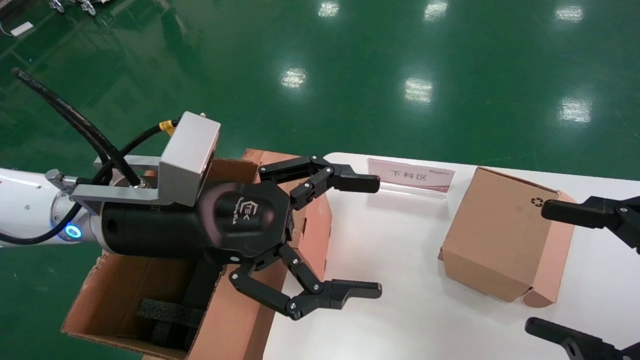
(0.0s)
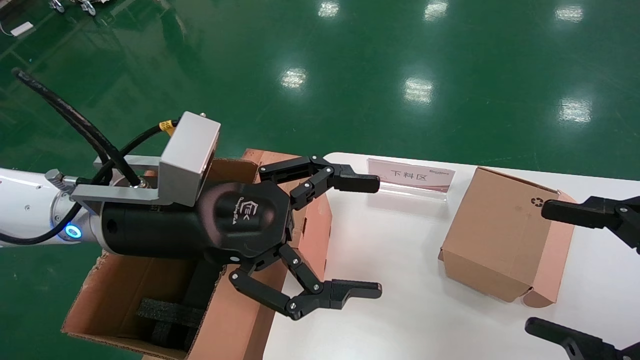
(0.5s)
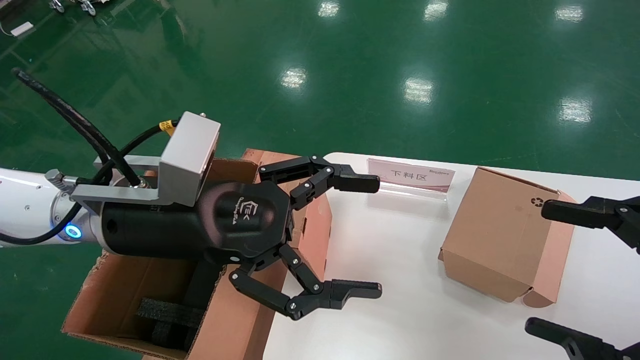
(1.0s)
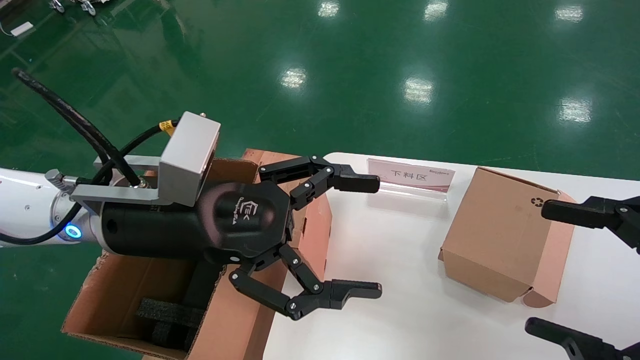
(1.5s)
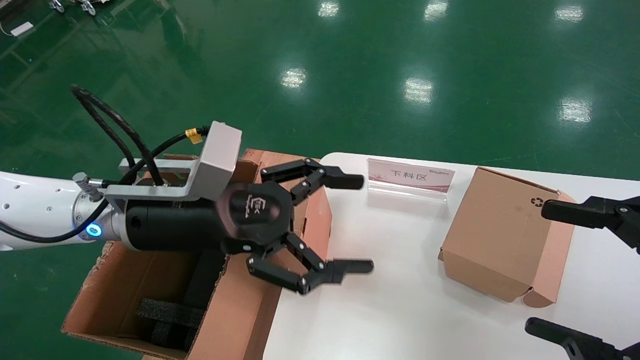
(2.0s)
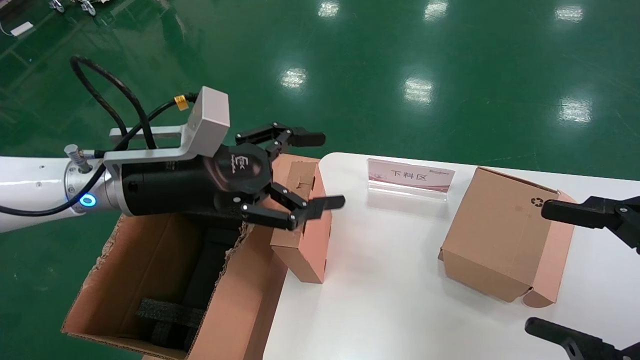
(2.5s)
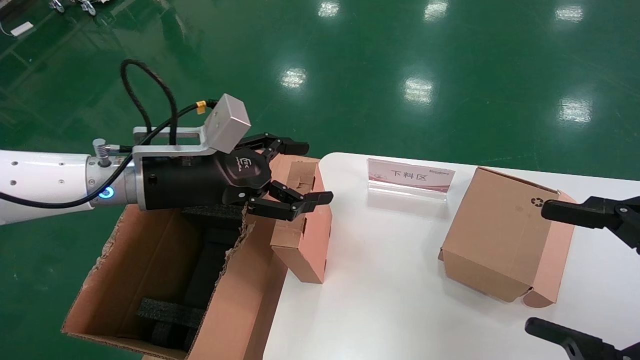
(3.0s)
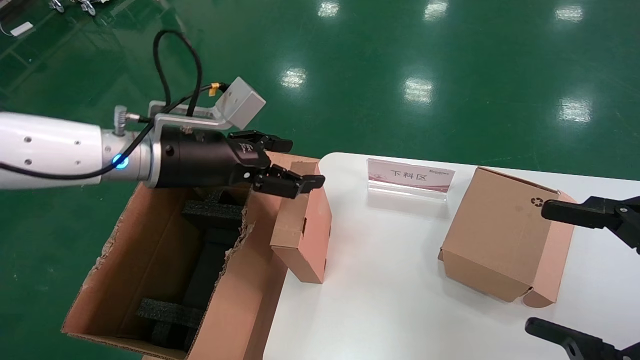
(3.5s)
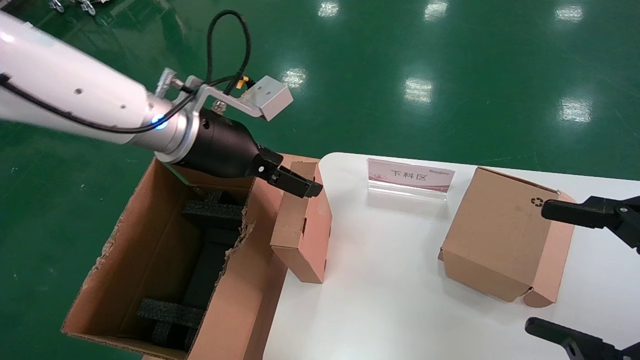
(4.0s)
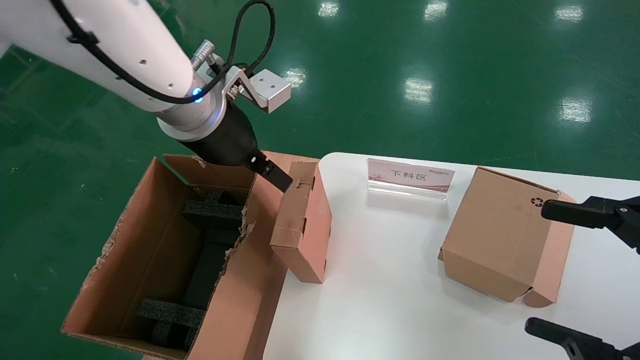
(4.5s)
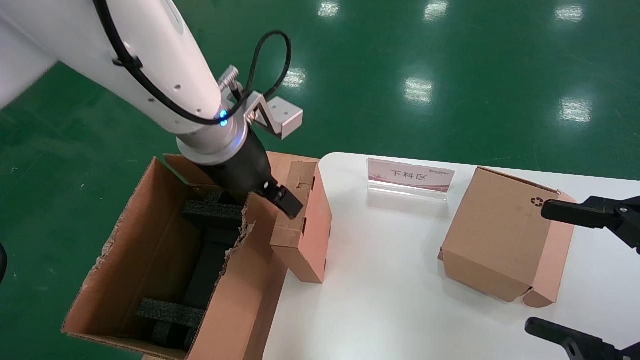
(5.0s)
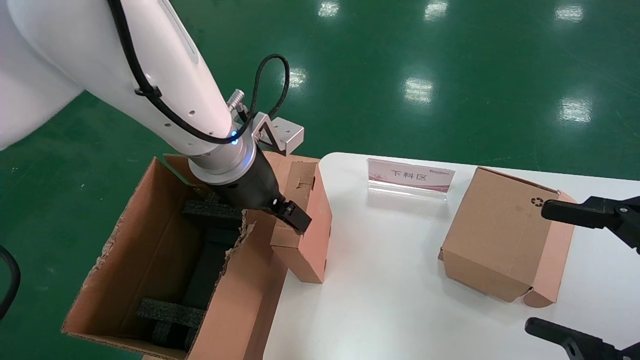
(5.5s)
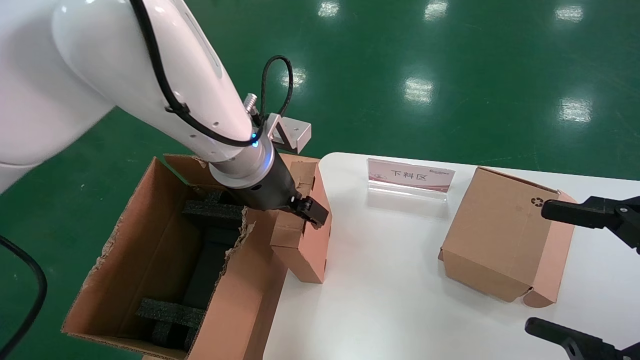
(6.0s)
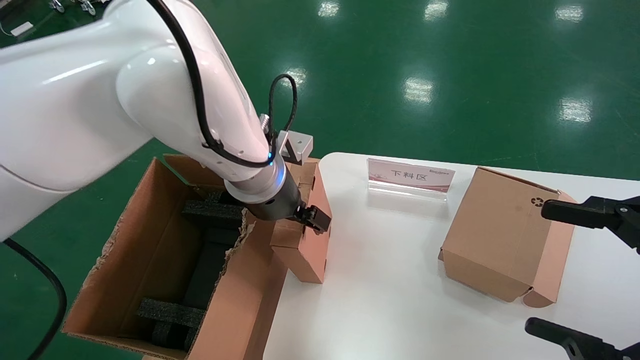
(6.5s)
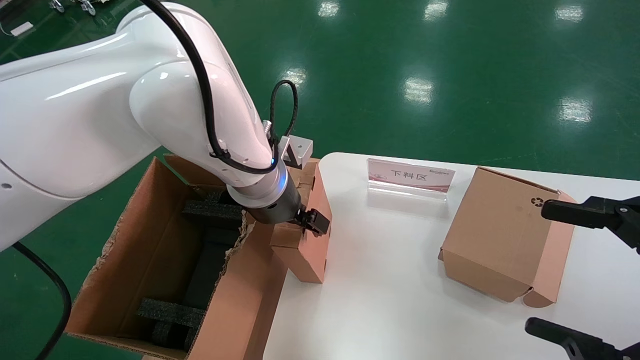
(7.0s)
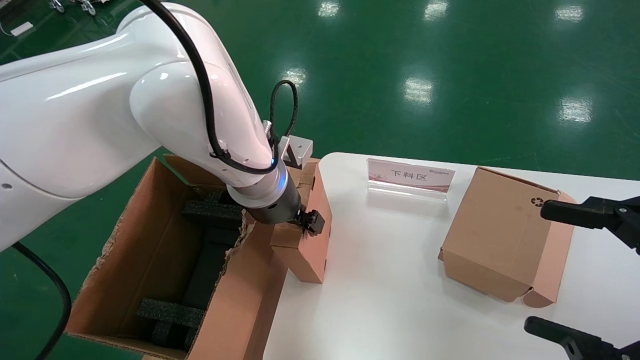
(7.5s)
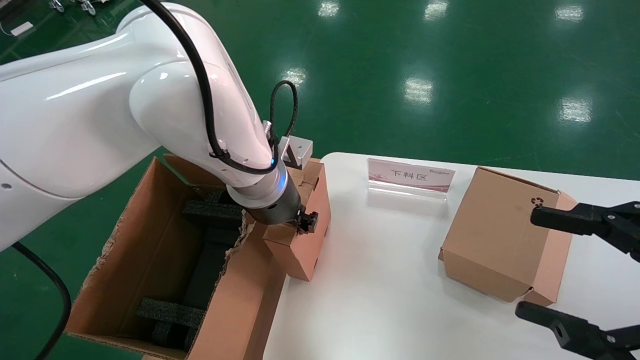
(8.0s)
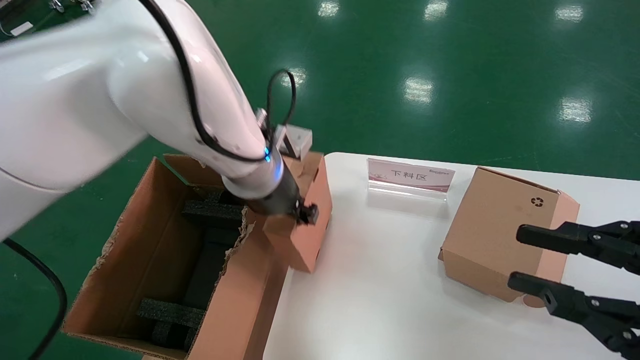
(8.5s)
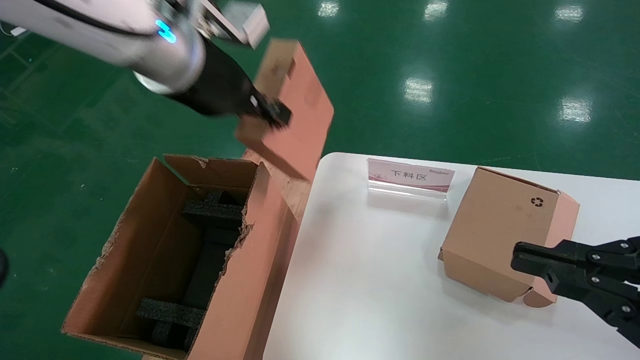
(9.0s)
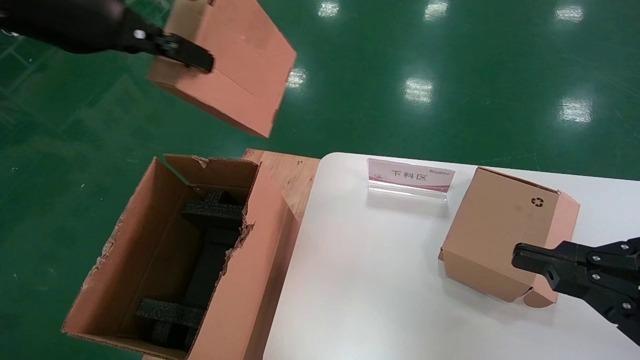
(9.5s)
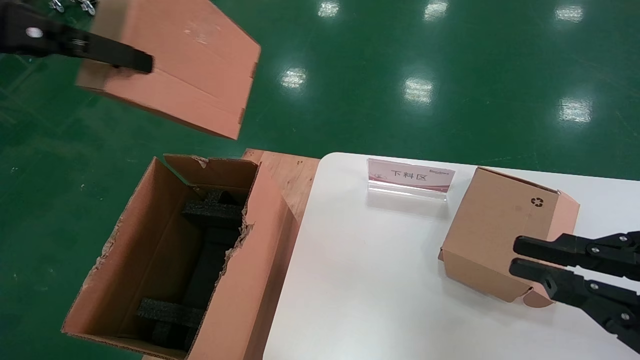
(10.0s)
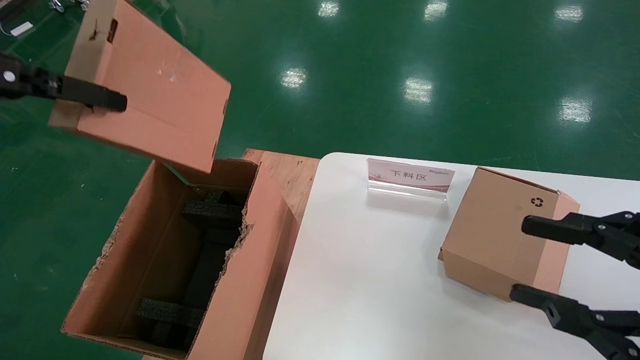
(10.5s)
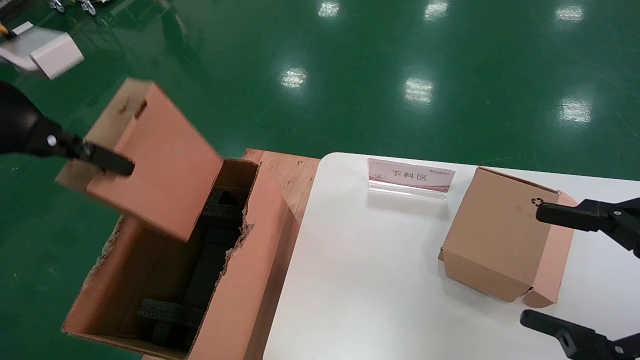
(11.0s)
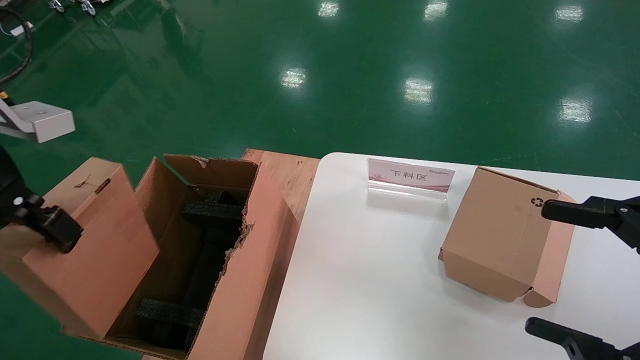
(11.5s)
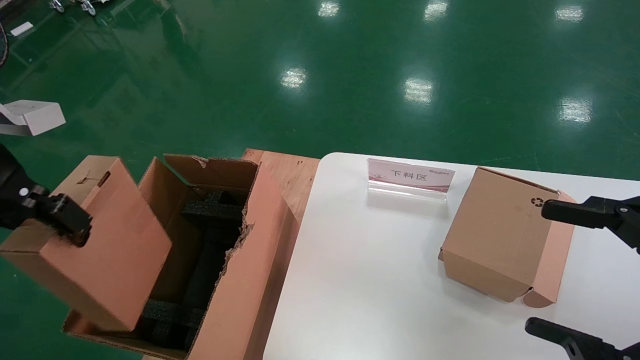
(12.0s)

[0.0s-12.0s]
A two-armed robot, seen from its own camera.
Task of the whole recording: put the box on the table into the big box.
Step, 0.0s to 7.5s: Grasp the paper box.
0.0s to 2.0s: The grippers make only small movements.
2.0s to 4.0s: The left gripper moves upward and forward, about 10 cm.
4.0s to 6.0s: The left gripper is displaced to the right by some 5 cm.
6.0s to 8.0s: The left gripper closes.
8.0s to 10.0s: The left gripper is displaced to the left, upward and backward by about 35 cm. Meanwhile the right gripper closes up.
10.0s to 12.0s: The right gripper opens its fingers, while the left gripper goes approximately 10 cm downward.

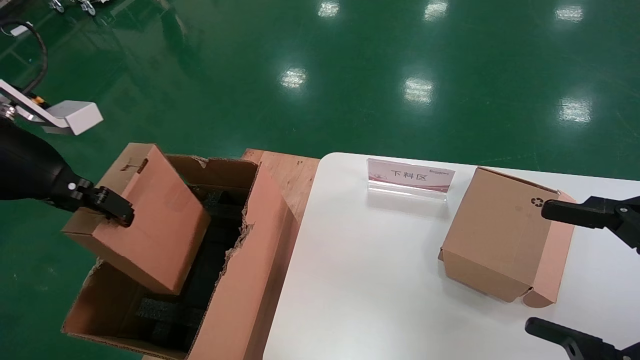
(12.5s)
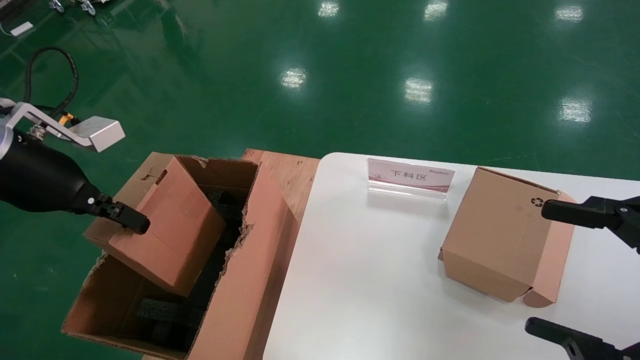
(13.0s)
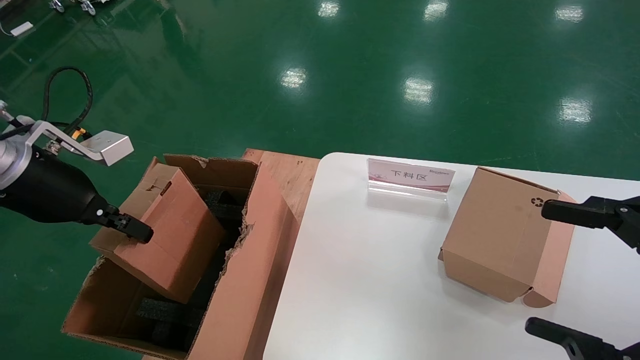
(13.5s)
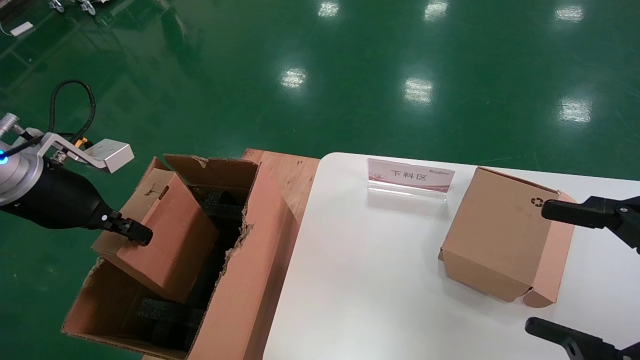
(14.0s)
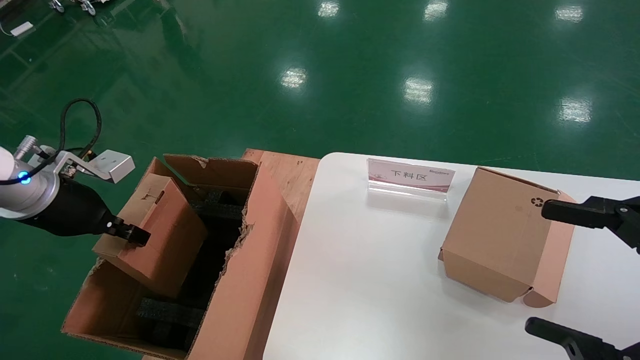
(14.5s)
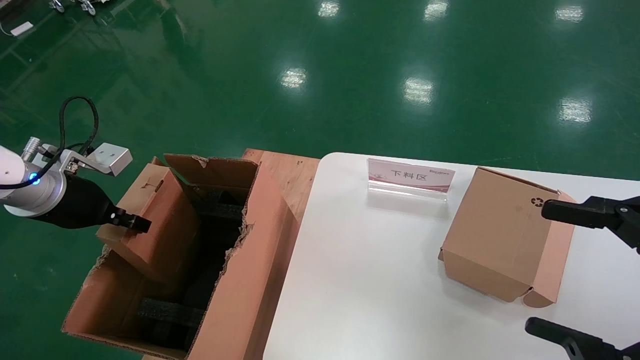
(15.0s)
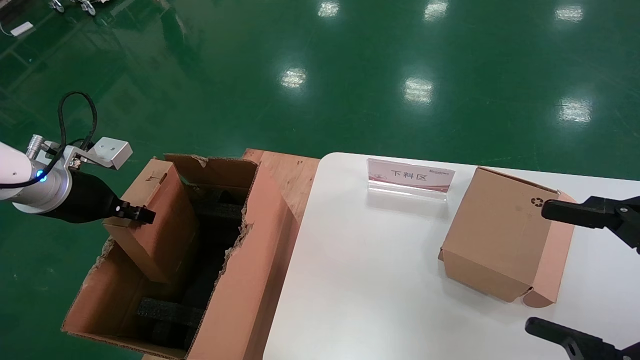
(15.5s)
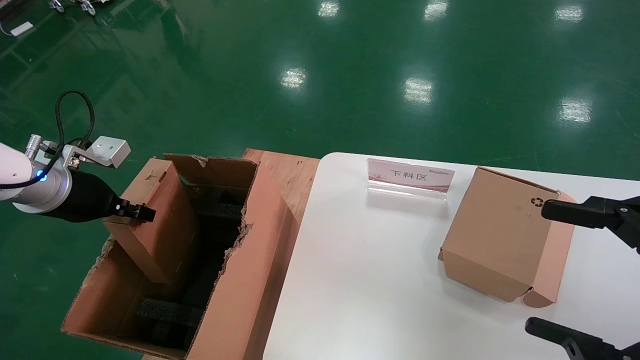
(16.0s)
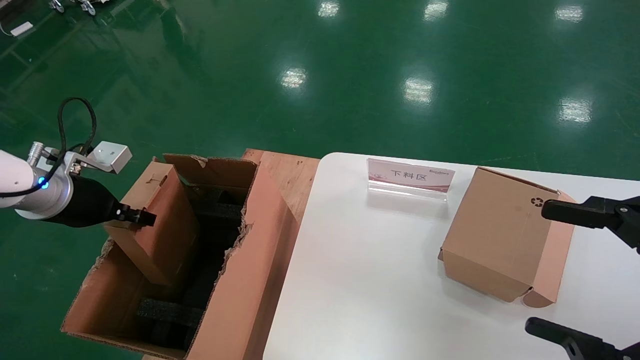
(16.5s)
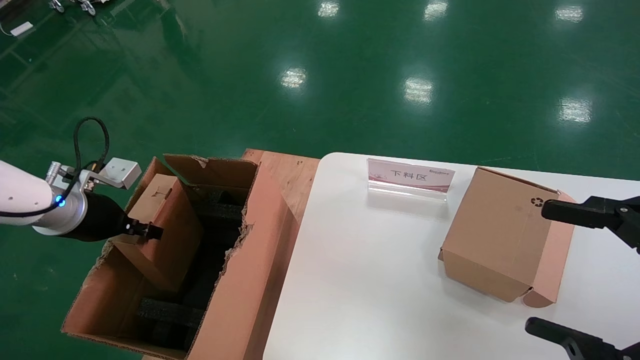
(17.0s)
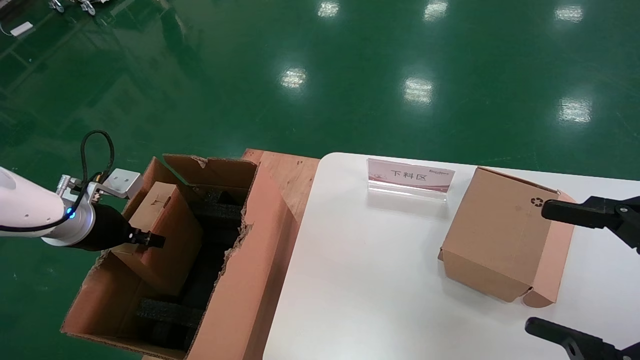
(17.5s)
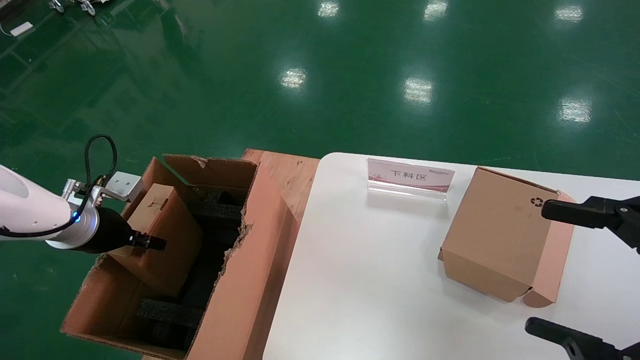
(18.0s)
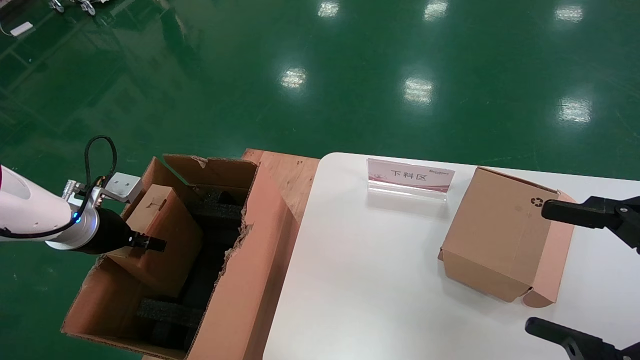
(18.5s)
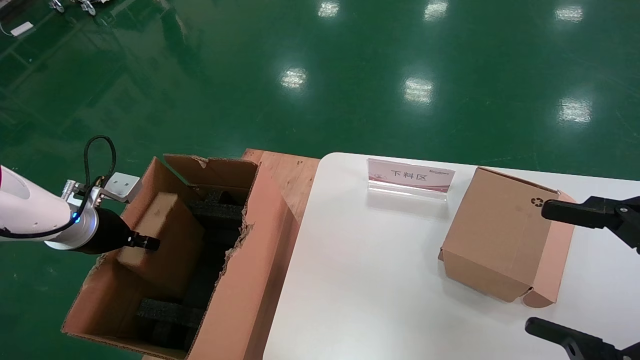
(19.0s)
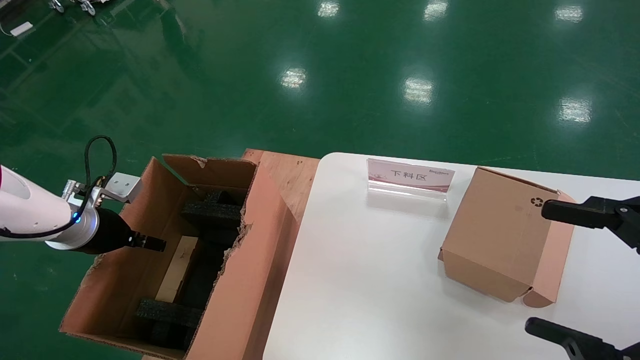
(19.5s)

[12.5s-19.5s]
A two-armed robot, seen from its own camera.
Task of the whole recording: put the box on the table into the big box.
Step, 12.5s to 19.0s: Place the paper box in the another big box.
12.5s to 14.5s: The left gripper heads downward and forward, covering some 10 cm.
14.5s to 16.0s: The grippers move only a little.
16.0s to 17.5s: The left gripper shifts roughly 5 cm downward.
17.5s to 19.5s: The left gripper opens.
